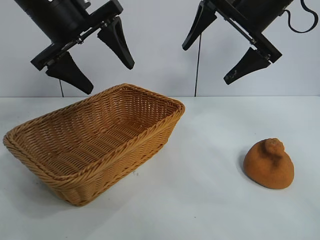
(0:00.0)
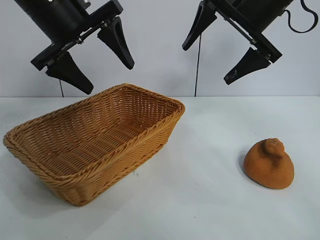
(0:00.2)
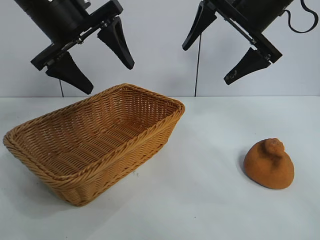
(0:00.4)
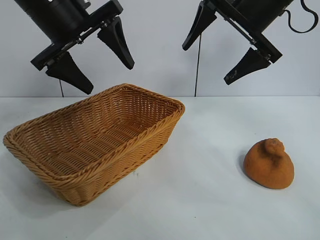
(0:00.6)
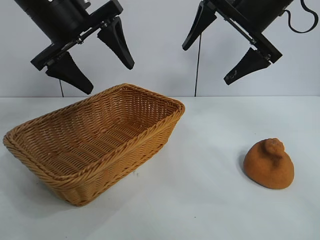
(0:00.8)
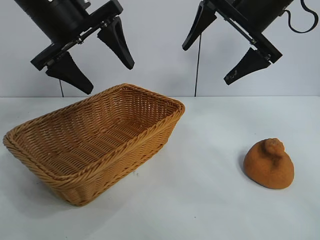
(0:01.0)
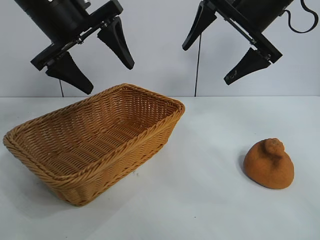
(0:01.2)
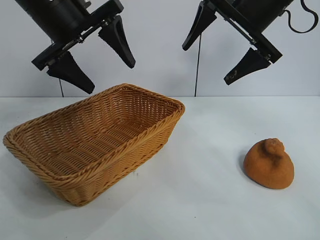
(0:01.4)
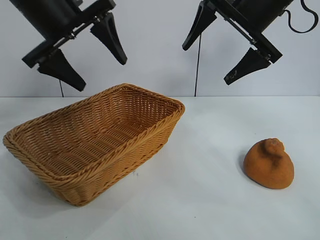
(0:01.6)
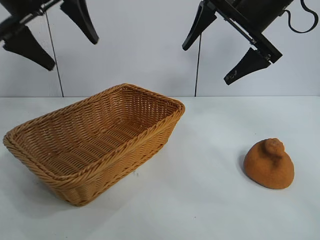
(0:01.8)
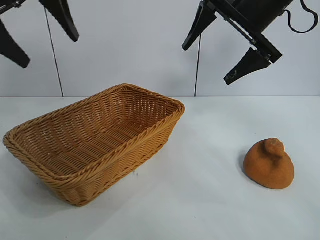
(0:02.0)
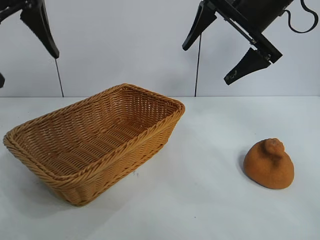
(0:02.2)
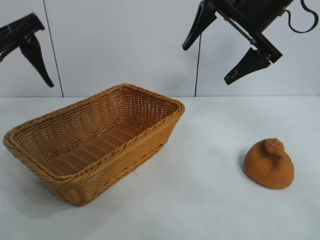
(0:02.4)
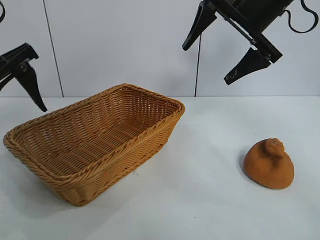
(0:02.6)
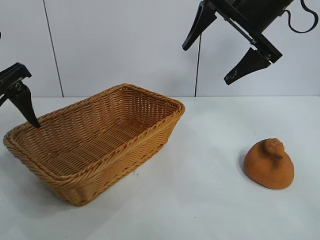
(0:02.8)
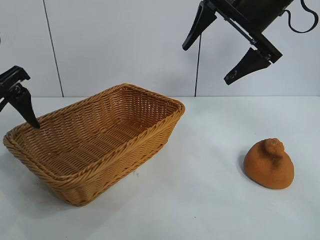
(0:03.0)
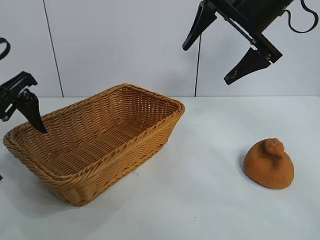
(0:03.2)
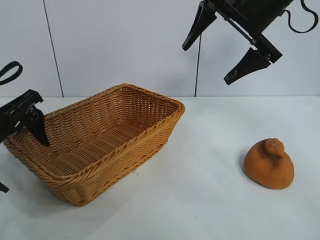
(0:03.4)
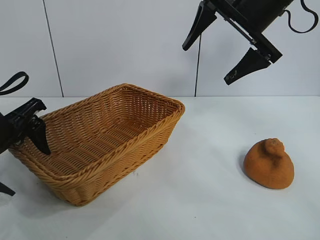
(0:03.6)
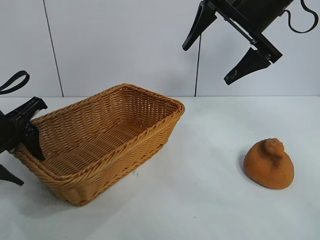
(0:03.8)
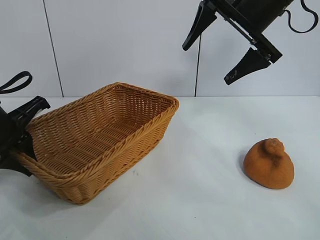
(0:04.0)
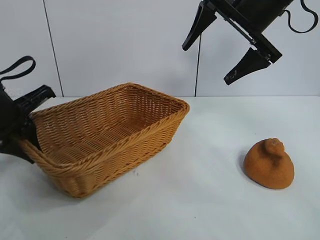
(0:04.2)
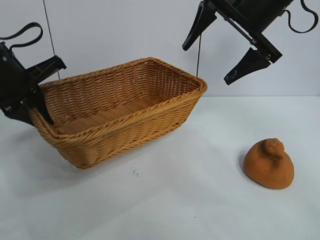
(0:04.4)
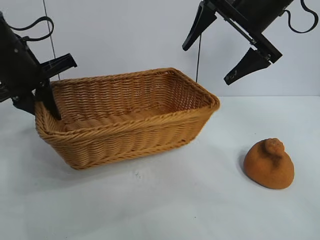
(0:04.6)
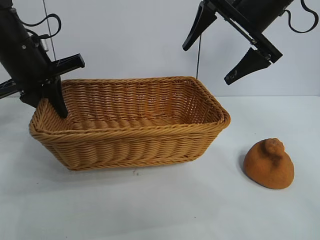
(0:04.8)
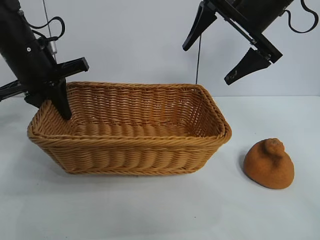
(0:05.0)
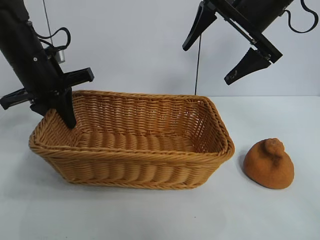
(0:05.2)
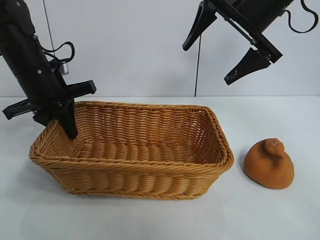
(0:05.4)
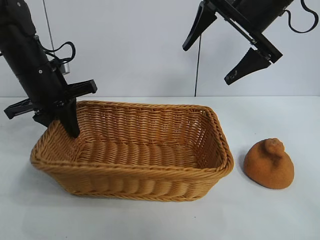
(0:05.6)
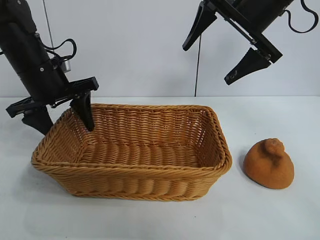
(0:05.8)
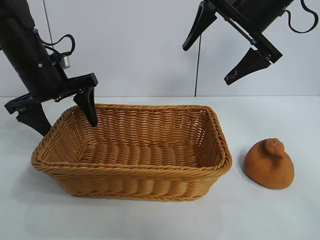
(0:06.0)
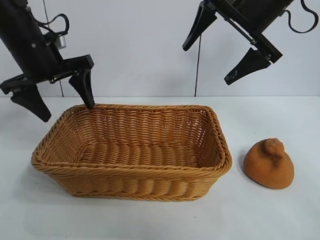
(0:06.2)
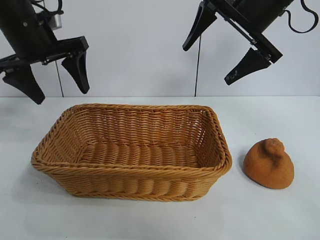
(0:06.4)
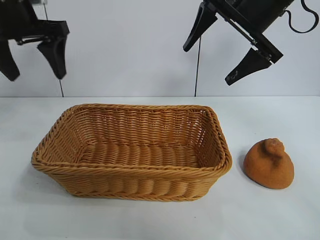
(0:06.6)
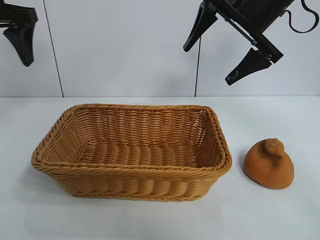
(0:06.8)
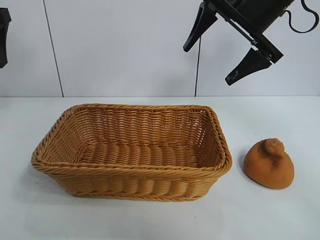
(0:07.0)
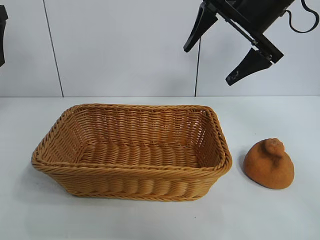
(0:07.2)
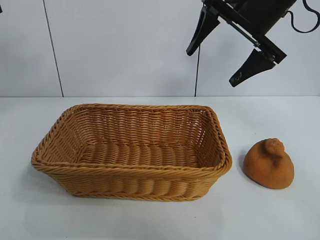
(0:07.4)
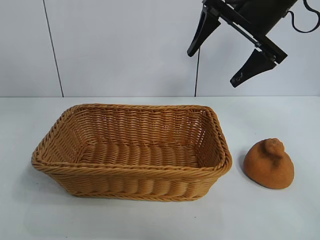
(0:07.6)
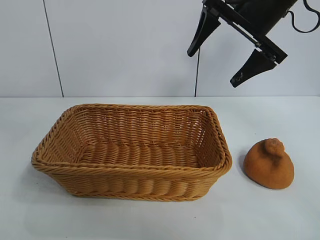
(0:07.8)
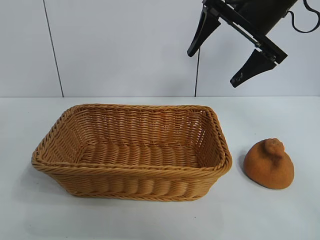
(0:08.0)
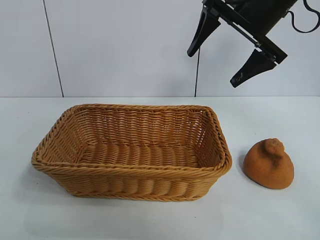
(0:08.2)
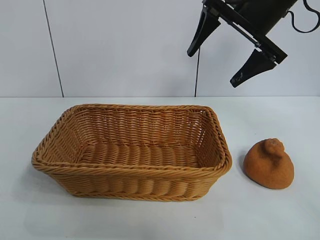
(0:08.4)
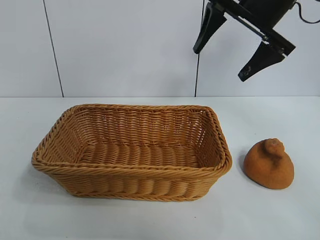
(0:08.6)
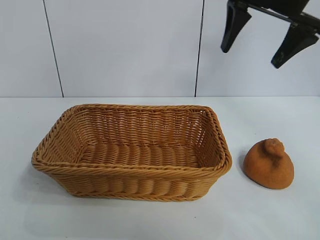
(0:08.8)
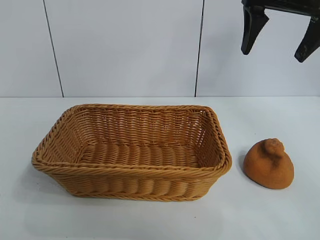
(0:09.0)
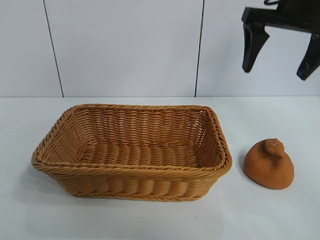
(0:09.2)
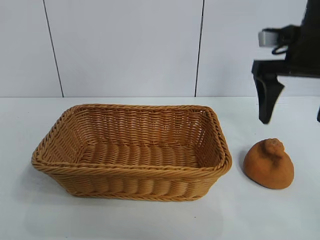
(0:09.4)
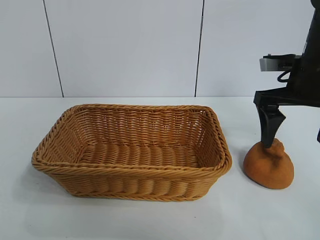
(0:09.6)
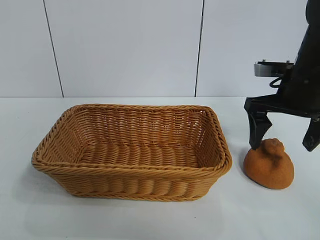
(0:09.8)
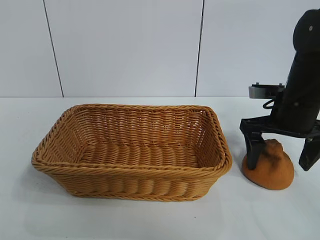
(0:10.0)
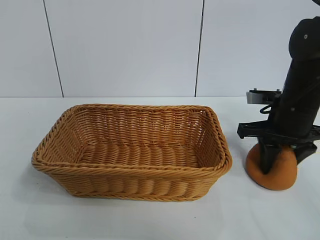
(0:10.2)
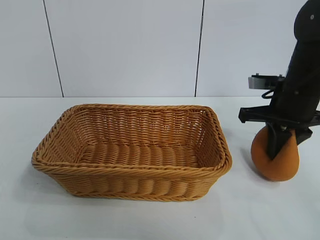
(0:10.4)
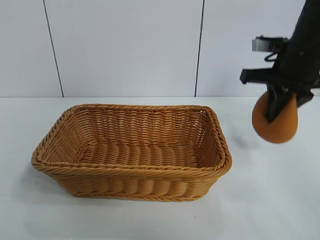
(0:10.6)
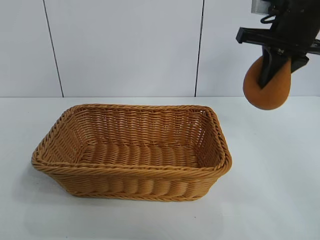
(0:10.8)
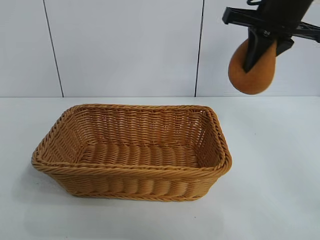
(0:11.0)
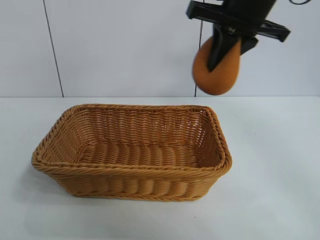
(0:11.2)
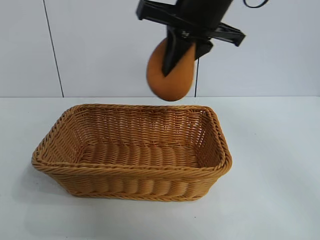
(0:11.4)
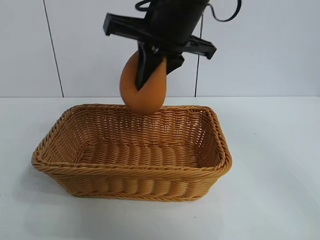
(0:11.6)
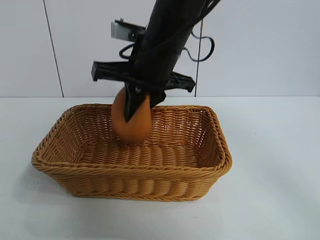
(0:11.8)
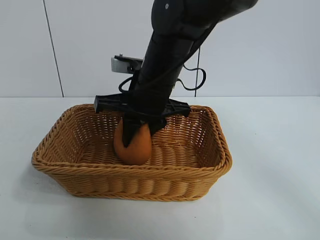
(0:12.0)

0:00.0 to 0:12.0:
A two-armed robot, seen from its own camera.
Task of the whole recording: pick up the orange and put it into the basket.
Step, 0:01.2 to 0:04.0: Grasp the basket with left gripper.
Step, 0:04.2 to 0:05.6: Place the basket in the center of view with left gripper.
Step, 0:06.0 to 0:10.0: Grasp the orange with right gripper.
